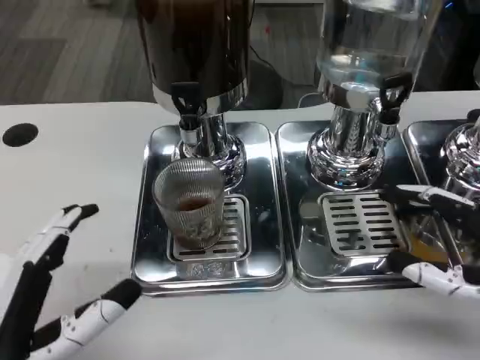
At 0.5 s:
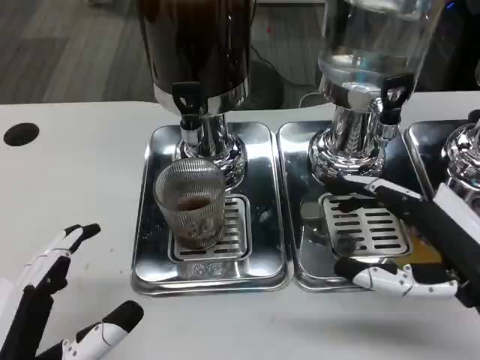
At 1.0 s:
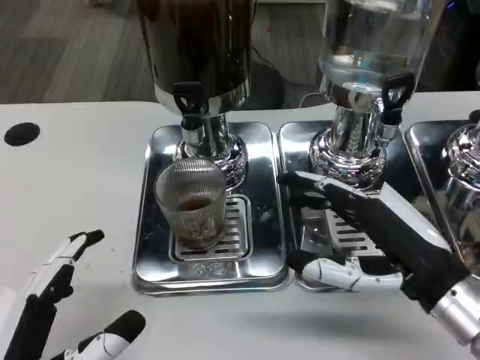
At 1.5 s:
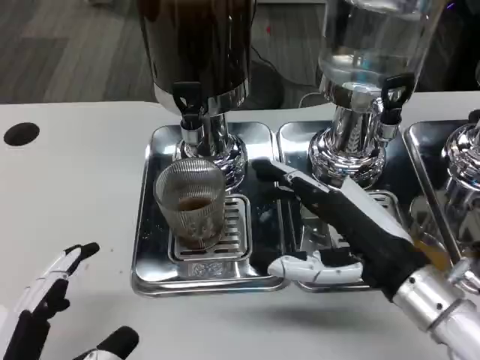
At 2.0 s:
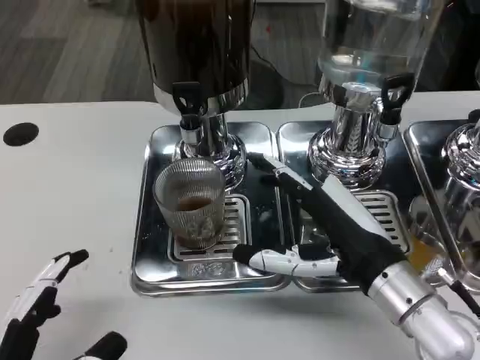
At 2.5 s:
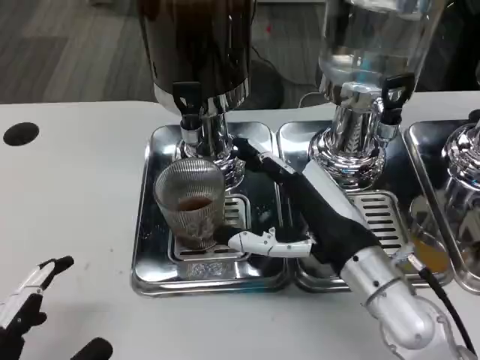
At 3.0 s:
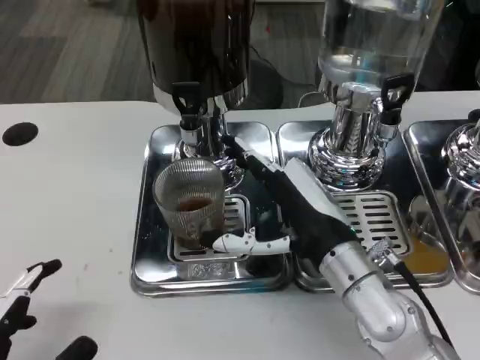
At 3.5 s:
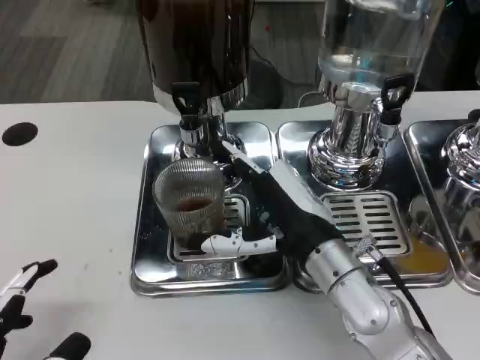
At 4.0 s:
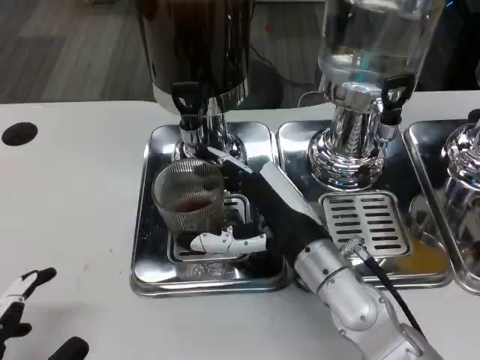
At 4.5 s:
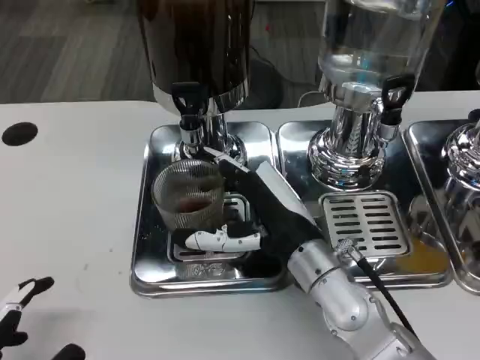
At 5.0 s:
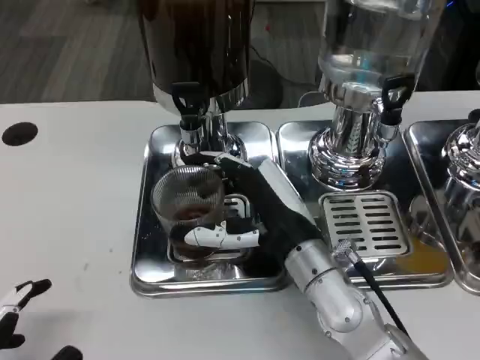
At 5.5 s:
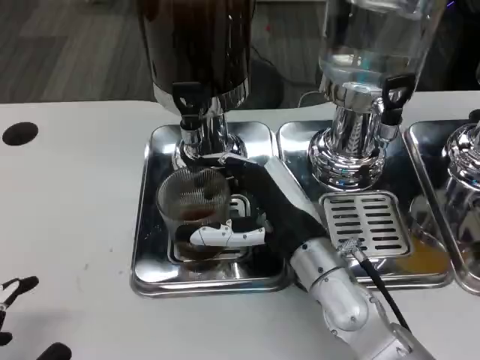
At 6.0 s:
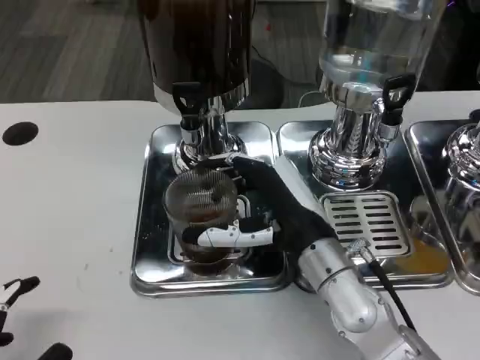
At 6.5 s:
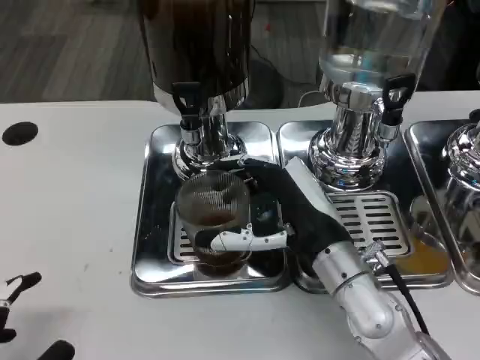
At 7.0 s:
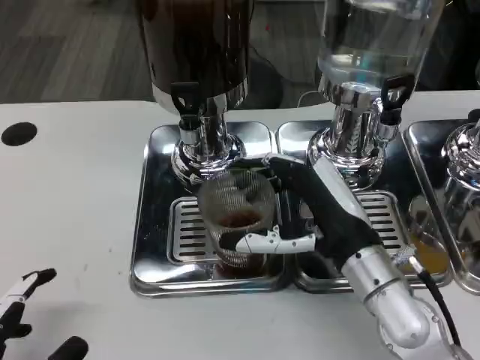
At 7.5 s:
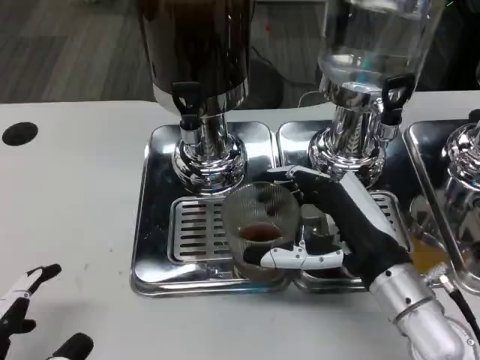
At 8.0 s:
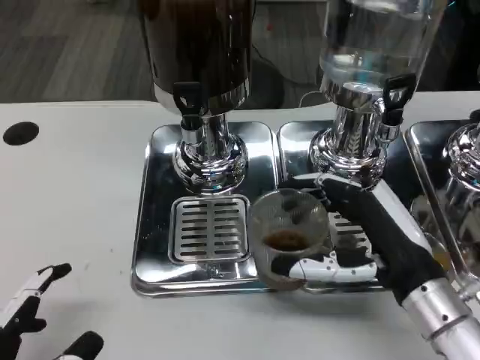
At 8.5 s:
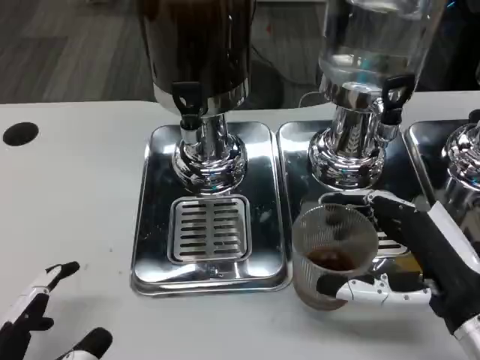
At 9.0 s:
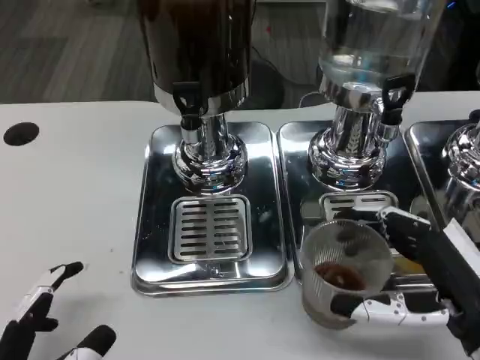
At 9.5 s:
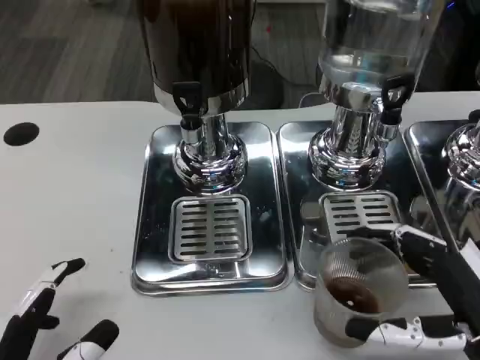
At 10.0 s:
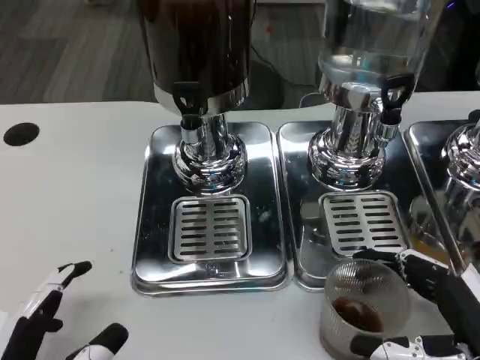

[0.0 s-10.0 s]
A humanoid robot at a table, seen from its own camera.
Task of the whole recording: Grasp the cup under the faucet to collect the drink, then remove the cup.
0.0 to 2.0 s: The right hand shifts roughly 15 cm to the left.
2.0 to 4.0 s: The right hand shifts some 5 cm to the left.
4.0 to 6.0 s: The hands move only a little.
6.0 to 8.0 s: The right hand travels to the right and backward by some 10 cm.
8.0 to 10.0 s: The right hand goes approximately 10 cm backward and to the right.

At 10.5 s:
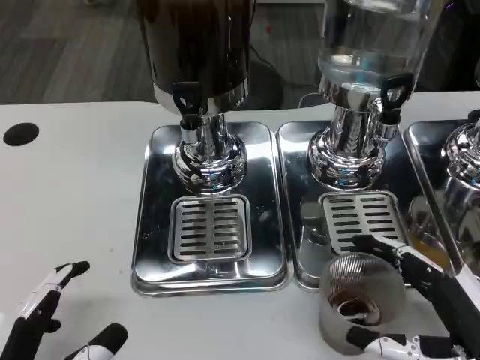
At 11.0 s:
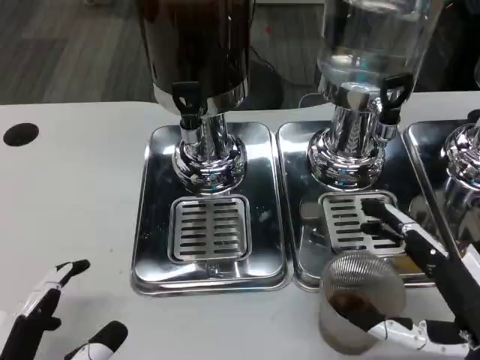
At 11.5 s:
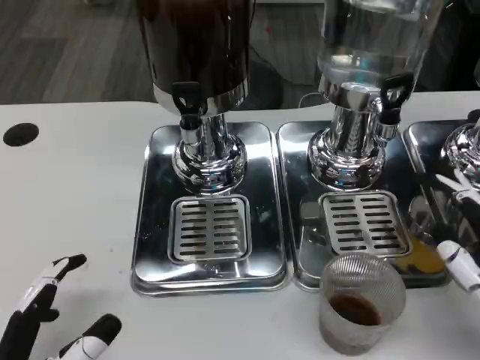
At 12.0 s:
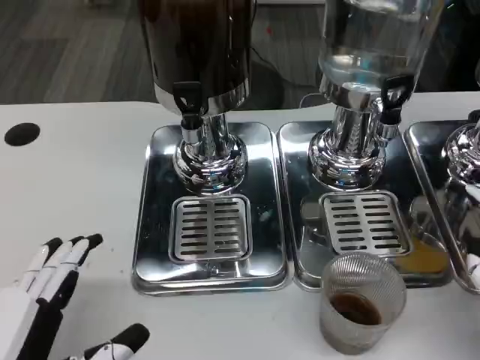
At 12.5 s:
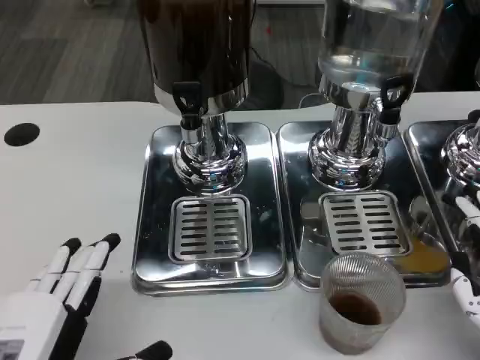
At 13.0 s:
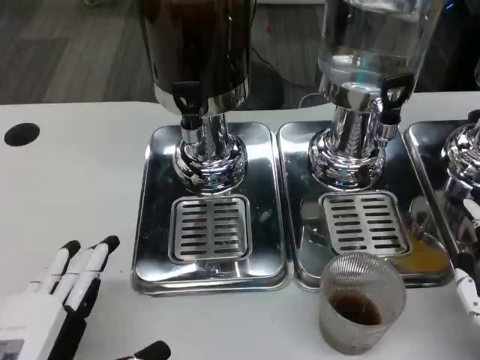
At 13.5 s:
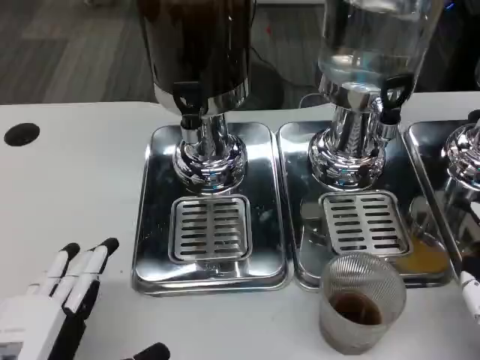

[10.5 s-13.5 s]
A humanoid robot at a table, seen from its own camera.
Task of the whole recording: Grasp the cup under the faucet to collect the drink, then remove the cup.
10.5 to 12.0 s: The right hand is displaced upward and to the right by roughly 10 cm.
12.0 to 13.5 s: The hands stay close to where they were, moving slightly.

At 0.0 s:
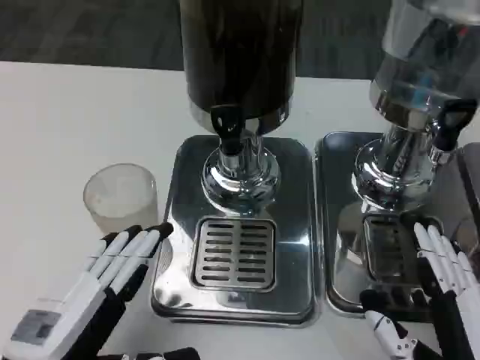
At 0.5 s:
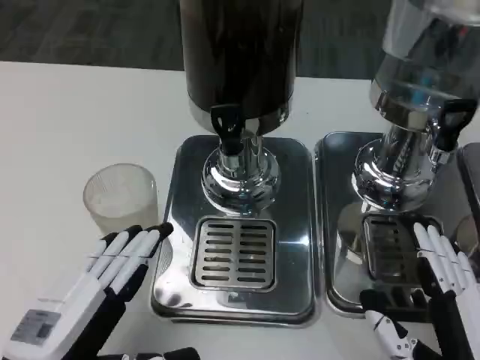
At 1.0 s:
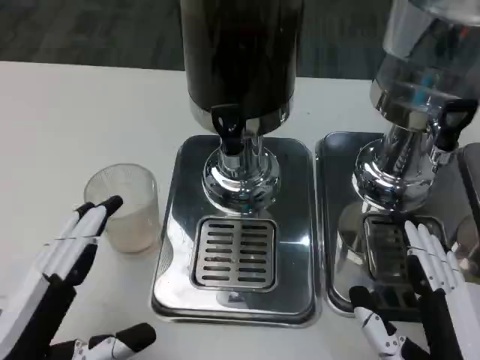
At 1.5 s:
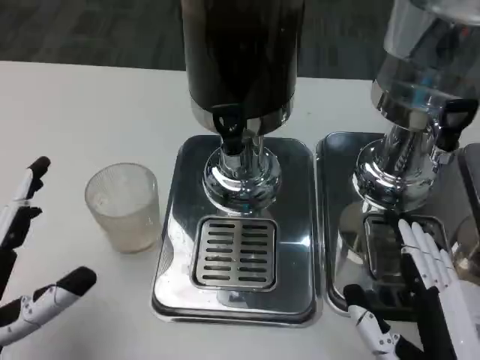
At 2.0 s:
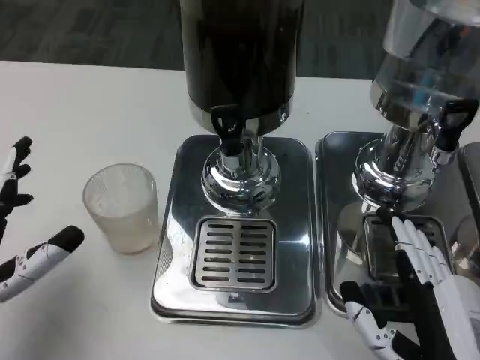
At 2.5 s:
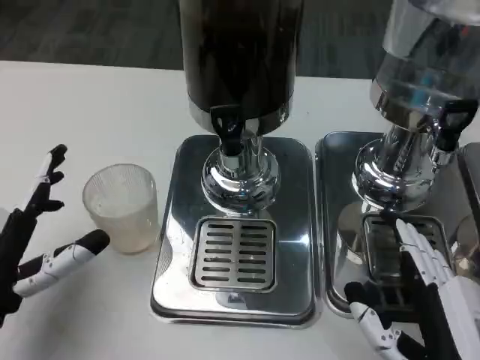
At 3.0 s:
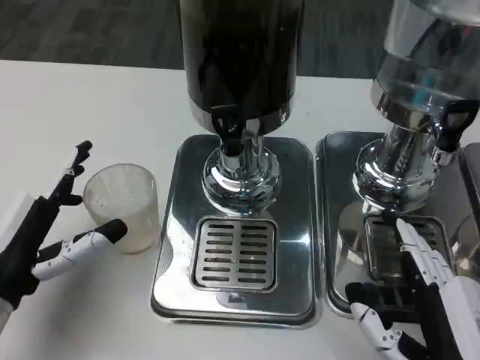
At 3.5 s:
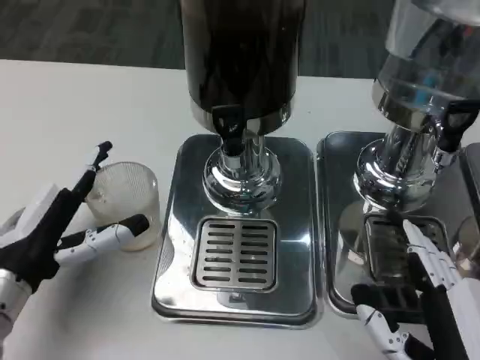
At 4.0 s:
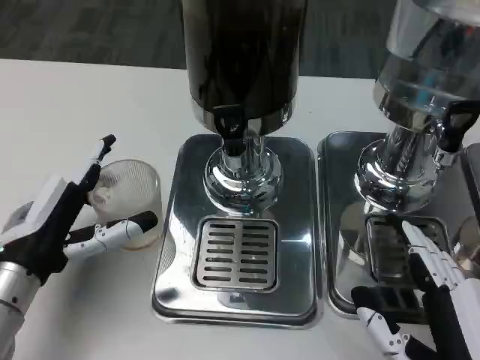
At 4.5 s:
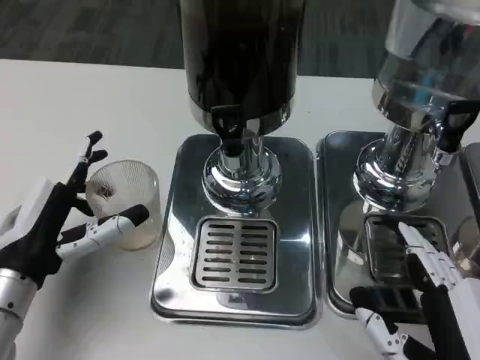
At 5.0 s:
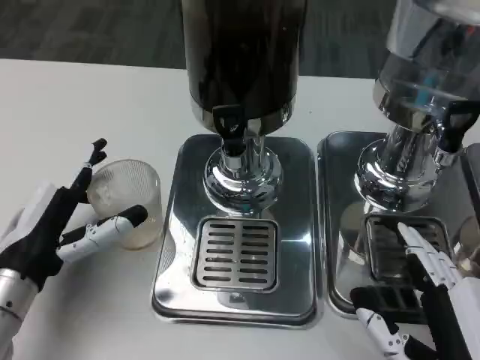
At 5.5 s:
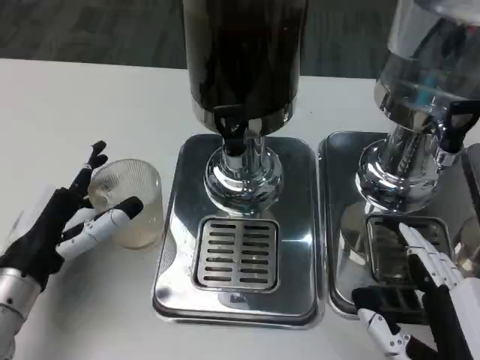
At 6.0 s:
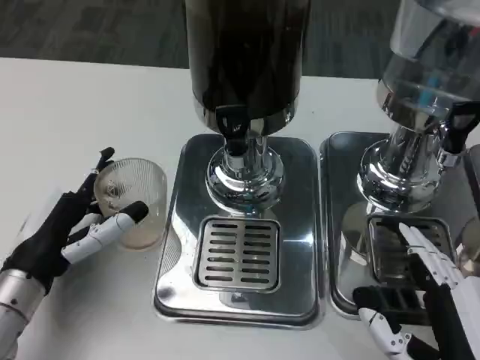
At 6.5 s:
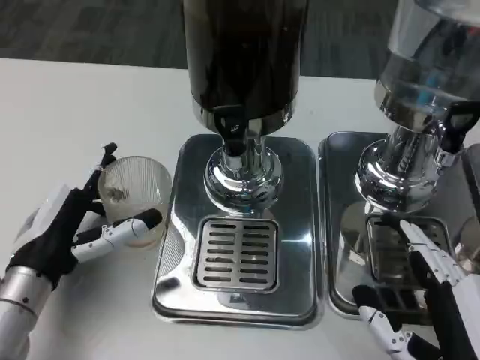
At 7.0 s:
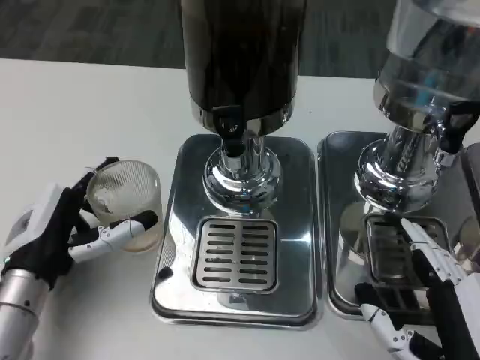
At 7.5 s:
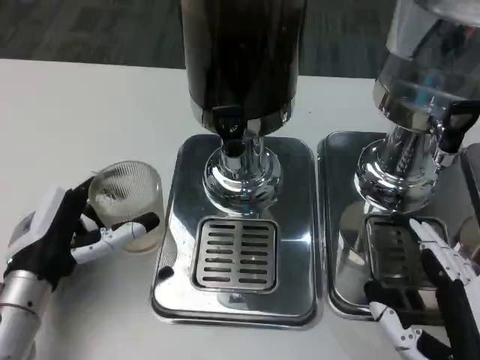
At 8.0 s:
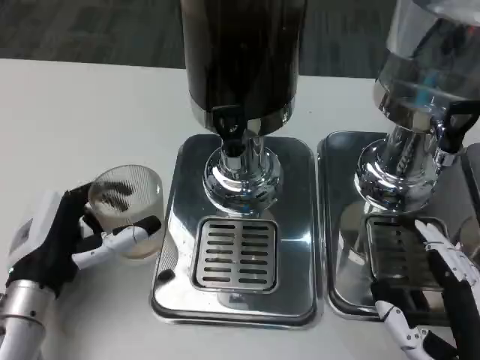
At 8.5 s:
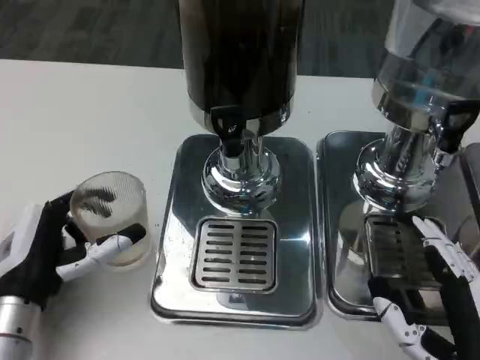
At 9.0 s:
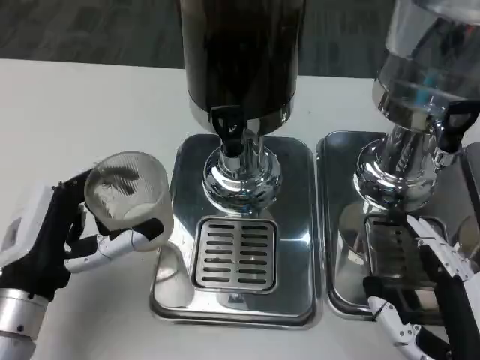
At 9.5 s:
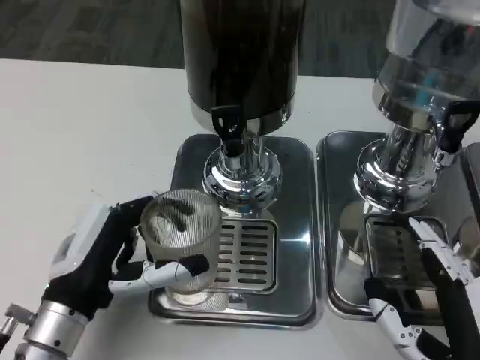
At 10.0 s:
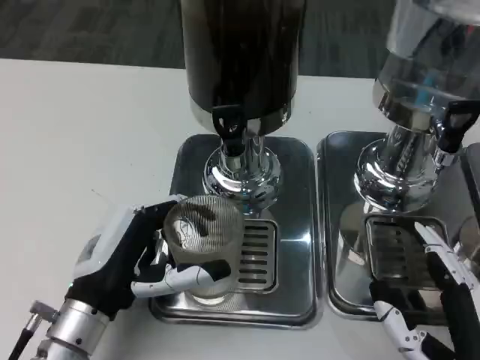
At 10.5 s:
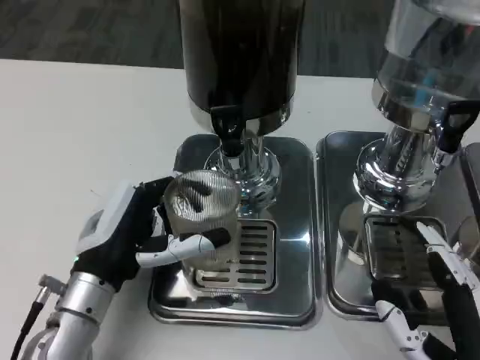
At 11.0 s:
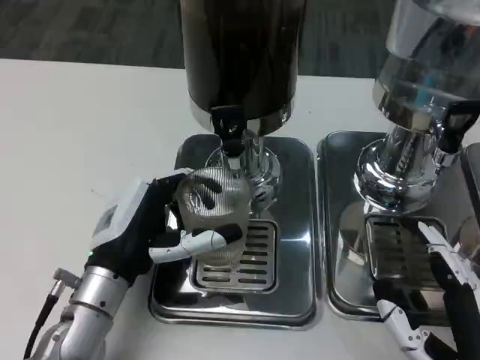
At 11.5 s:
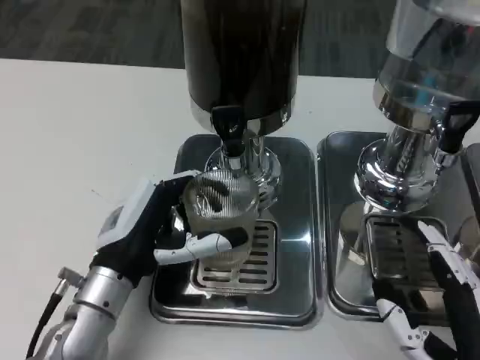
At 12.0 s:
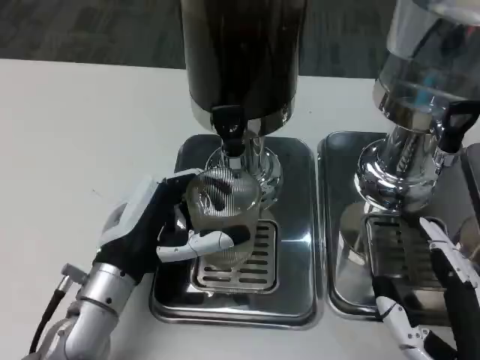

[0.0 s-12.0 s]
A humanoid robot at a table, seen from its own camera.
Task of the whole recording: Grasp the cup under the faucet to collect the drink, then remove the cup.
0.0 to 2.0 s: The left hand moves to the left and forward, about 10 cm.
2.0 to 4.0 s: The left hand moves forward, roughly 5 cm.
4.0 to 6.0 s: There are only small adjustments of the hands.
10.0 to 12.0 s: The hands stay close to where they were, moving slightly.
